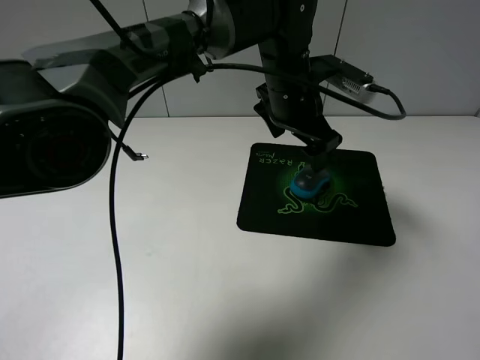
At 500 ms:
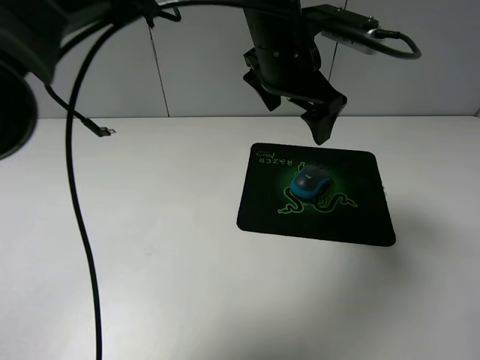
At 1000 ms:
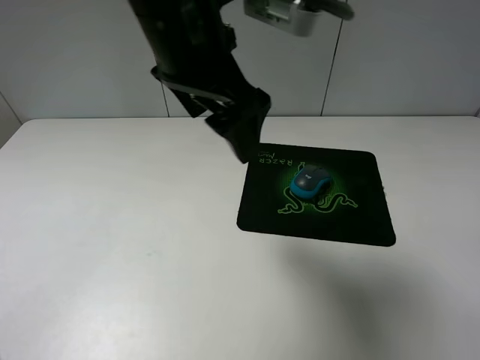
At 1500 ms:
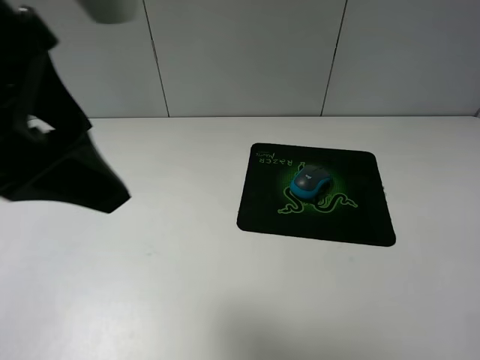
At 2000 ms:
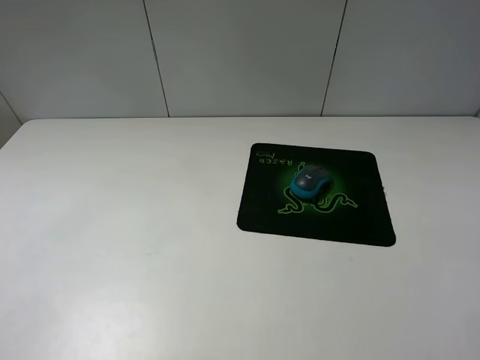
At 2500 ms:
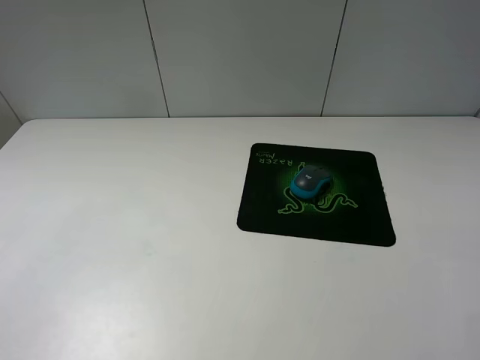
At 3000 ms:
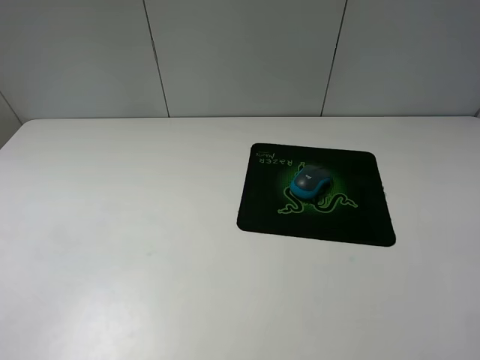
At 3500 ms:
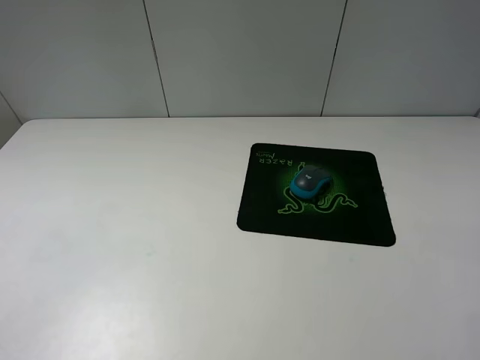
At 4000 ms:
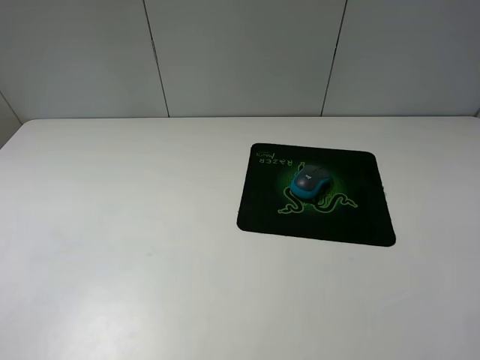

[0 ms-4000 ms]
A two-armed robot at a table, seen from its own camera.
0 ms to 2000 ms: The left gripper heads to the left, backward and upward, covering roughly 50 cm.

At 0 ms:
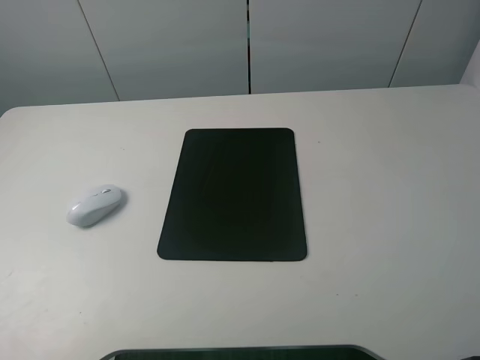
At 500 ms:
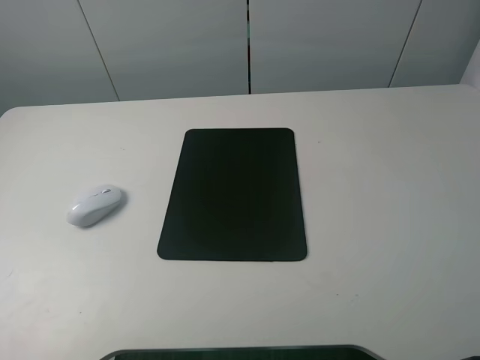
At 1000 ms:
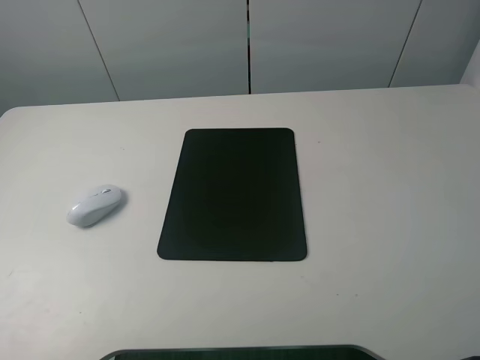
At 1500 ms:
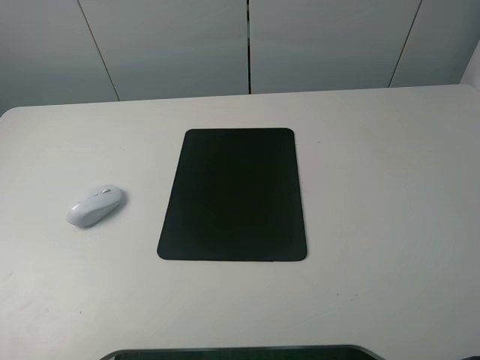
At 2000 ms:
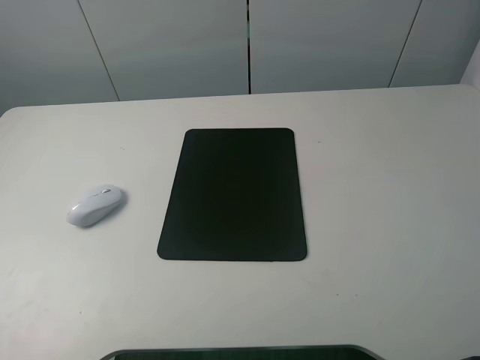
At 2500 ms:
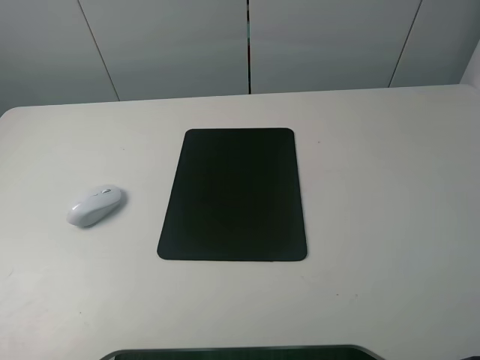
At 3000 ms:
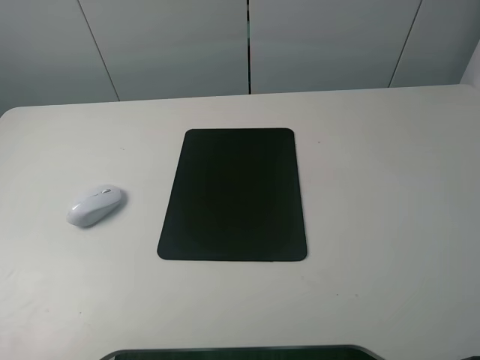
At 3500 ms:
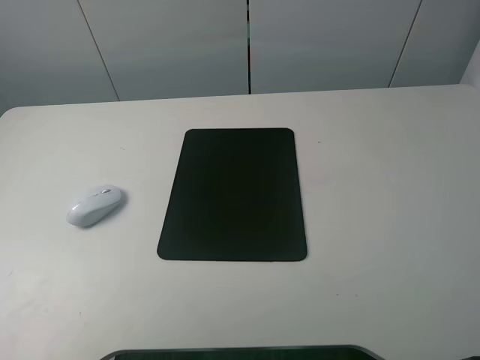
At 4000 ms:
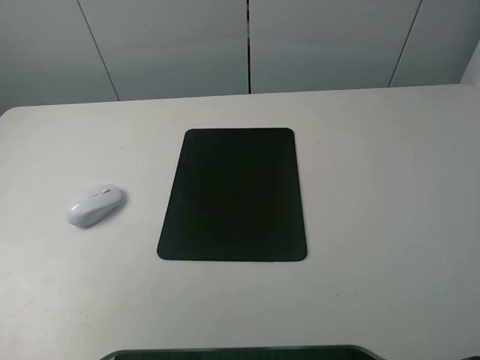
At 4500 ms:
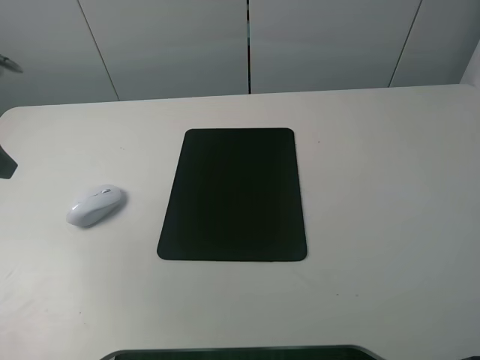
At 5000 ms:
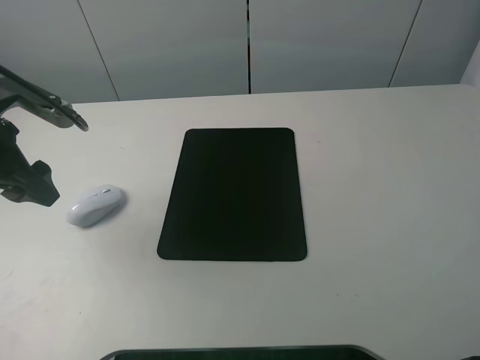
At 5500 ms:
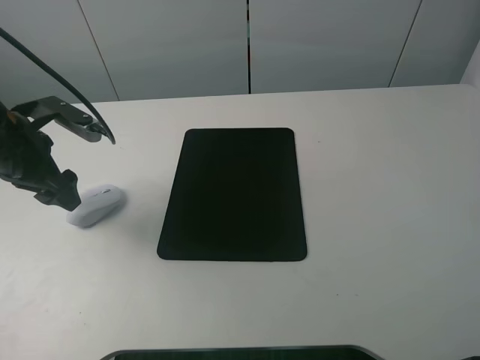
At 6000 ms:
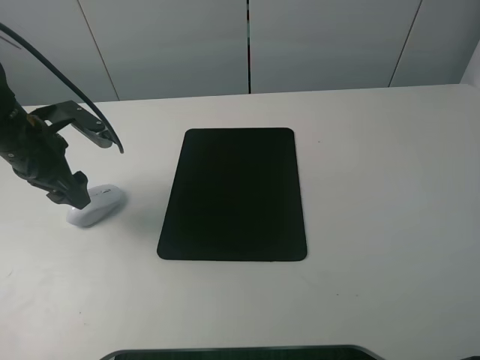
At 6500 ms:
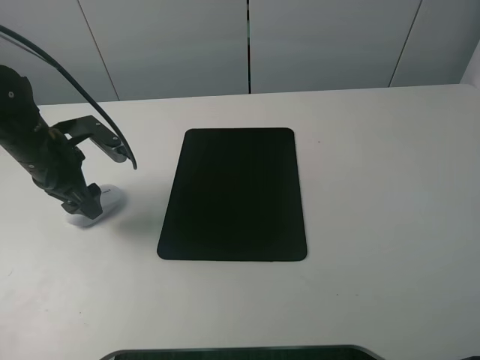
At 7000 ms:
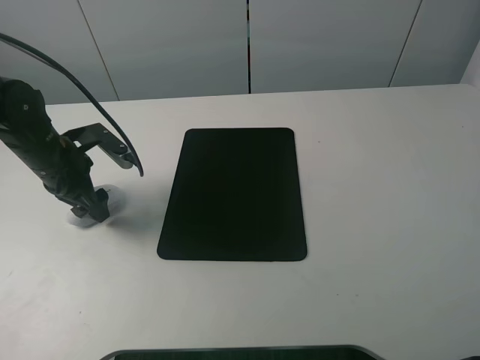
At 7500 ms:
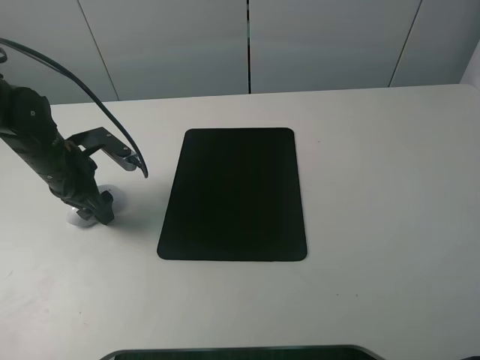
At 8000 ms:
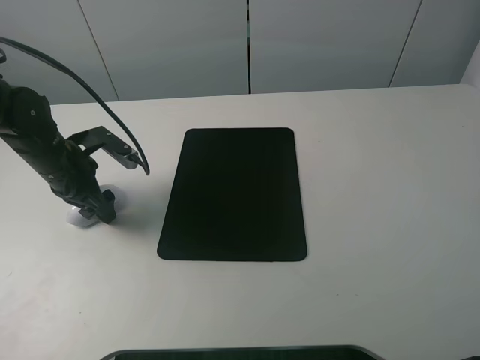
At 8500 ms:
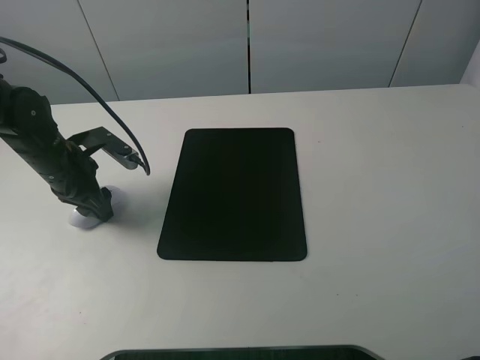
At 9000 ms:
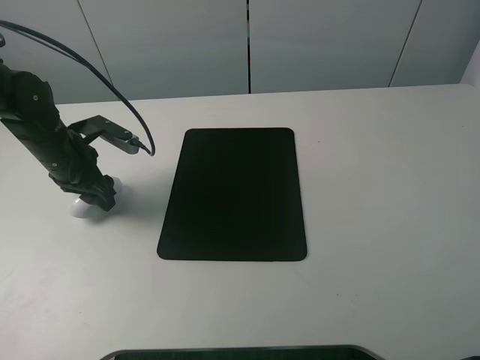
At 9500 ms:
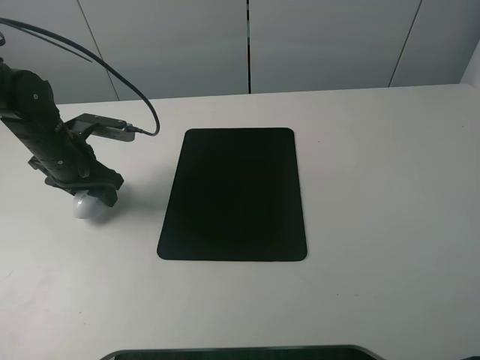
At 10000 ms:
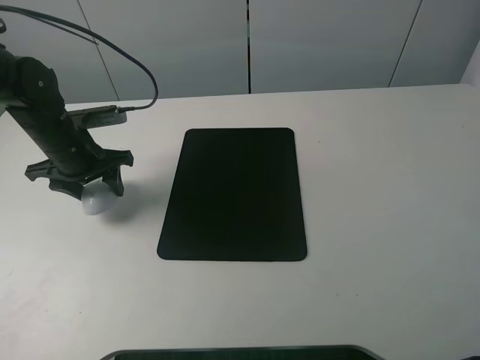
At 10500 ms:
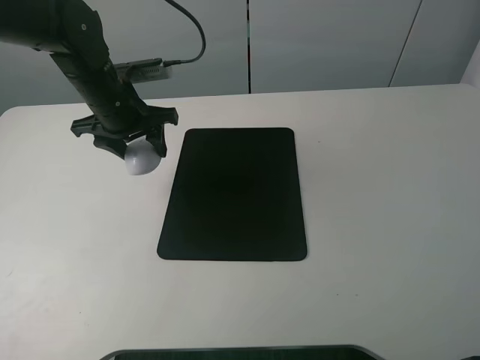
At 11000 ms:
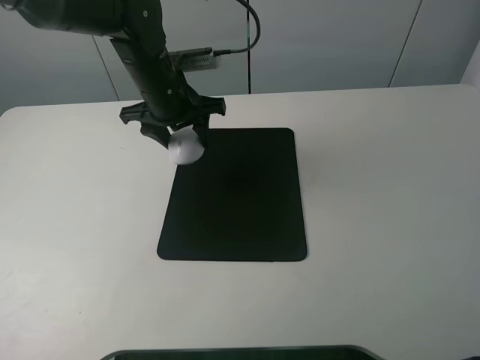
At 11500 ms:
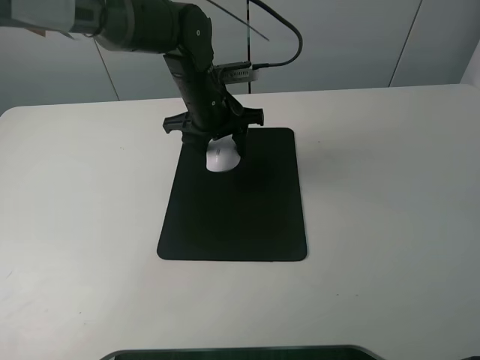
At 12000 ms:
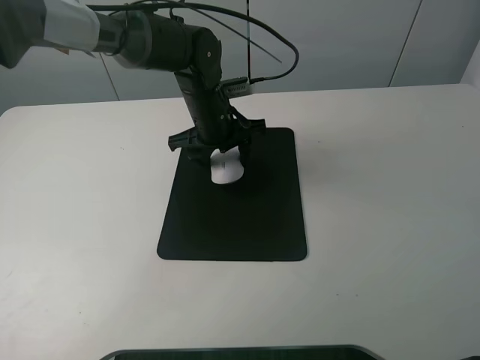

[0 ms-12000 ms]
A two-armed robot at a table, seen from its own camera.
Step, 0 ms to 8500 ms: Grasp the mouse with the left gripper.
0 ms to 2000 ms: Both grippers stay put.
2000 ms to 4000 ms: The left gripper moves forward, some 15 cm.
4000 ms to 6000 ms: The left gripper heads downward and forward, covering approximately 20 cm.
6000 ms to 8000 ms: The left gripper is displaced downward by some 5 cm.
8000 ms to 10000 ms: The left gripper closes its fingers.
10000 ms to 12000 ms: The left gripper moves to the right, some 20 cm.

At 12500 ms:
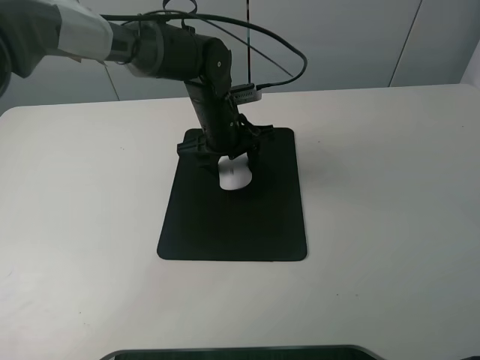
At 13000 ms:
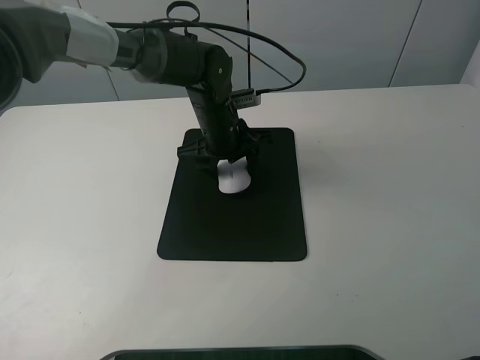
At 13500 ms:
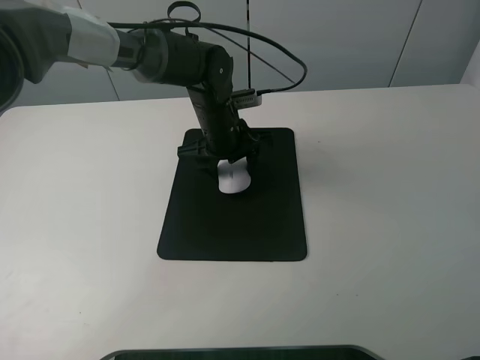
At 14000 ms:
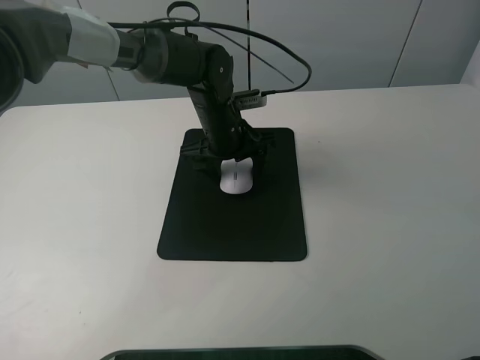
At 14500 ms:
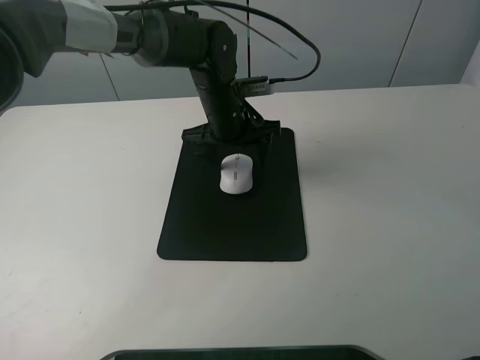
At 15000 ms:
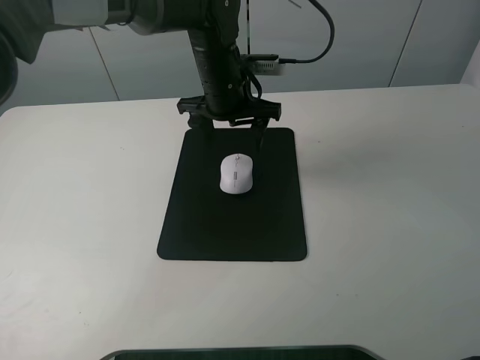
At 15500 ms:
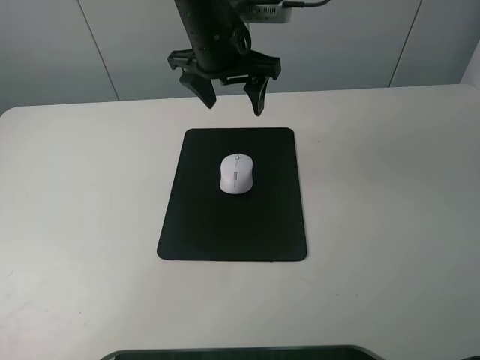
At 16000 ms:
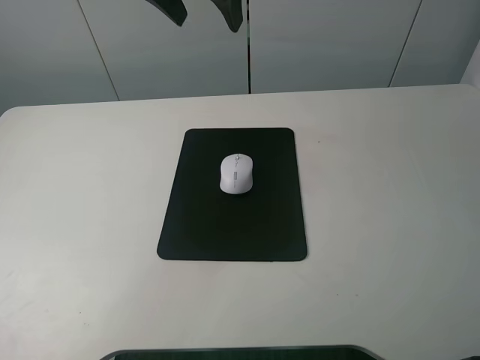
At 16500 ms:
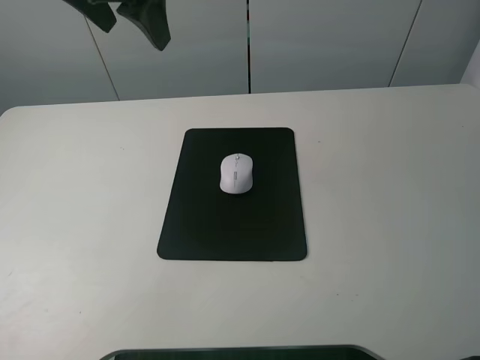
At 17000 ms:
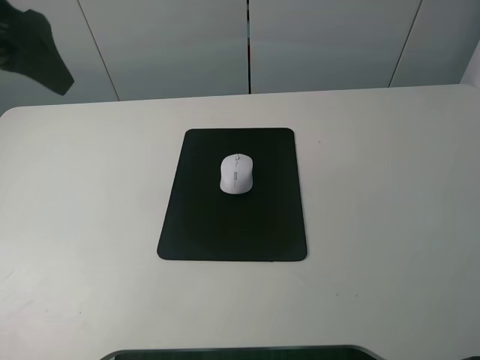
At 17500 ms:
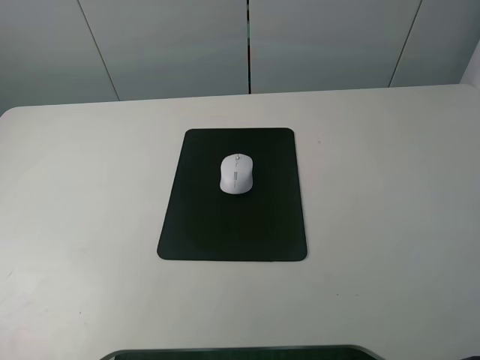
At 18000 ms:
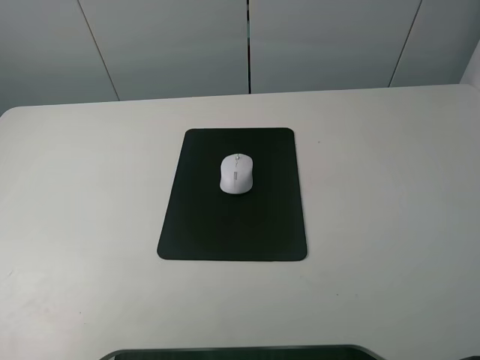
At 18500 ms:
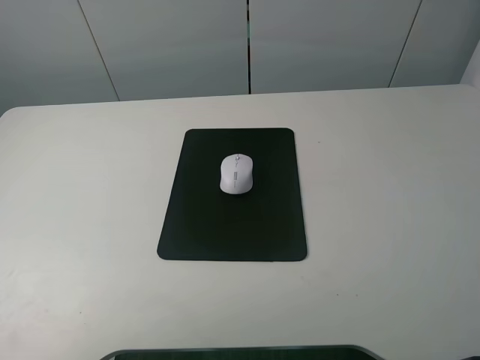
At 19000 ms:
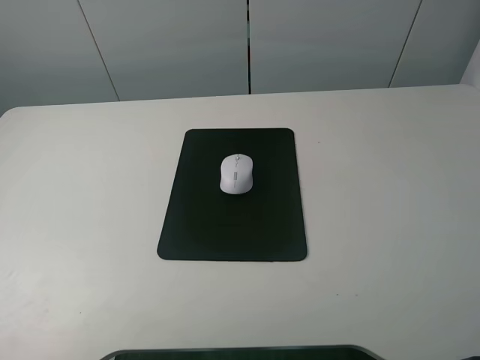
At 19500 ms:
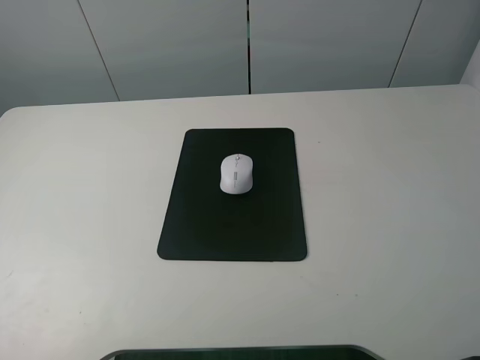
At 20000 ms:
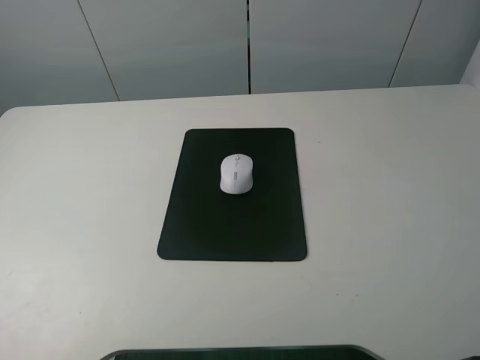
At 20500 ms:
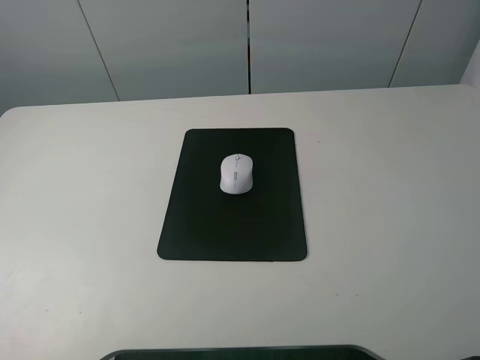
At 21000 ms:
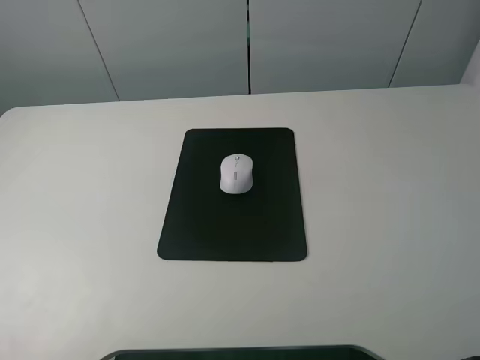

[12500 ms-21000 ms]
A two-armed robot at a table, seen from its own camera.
12500 ms to 14500 ms: The left gripper opens up.
14500 ms to 16500 ms: The left gripper goes roughly 25 cm upward and to the left.
16500 ms to 19000 ms: The left gripper shifts roughly 35 cm backward and to the left.
